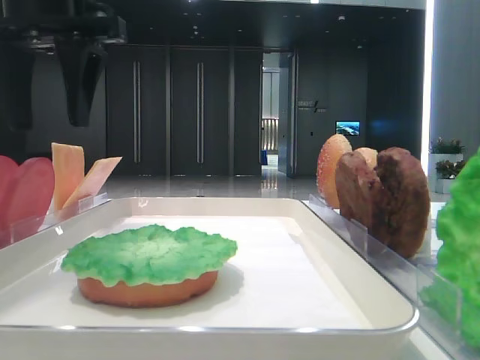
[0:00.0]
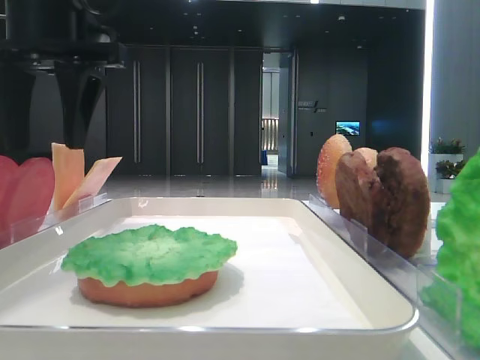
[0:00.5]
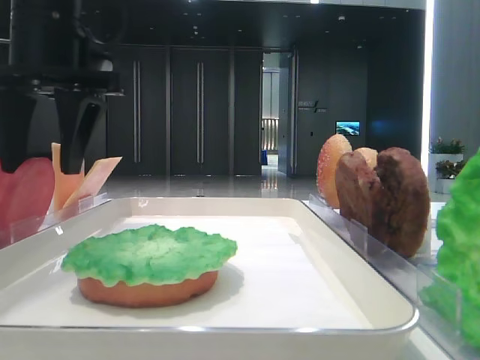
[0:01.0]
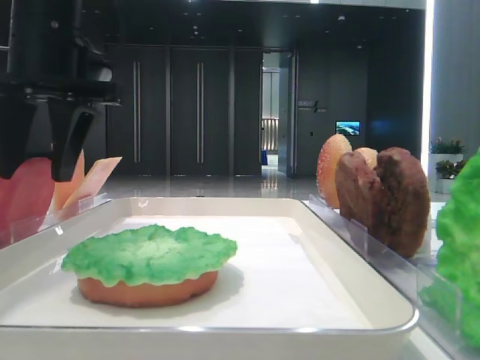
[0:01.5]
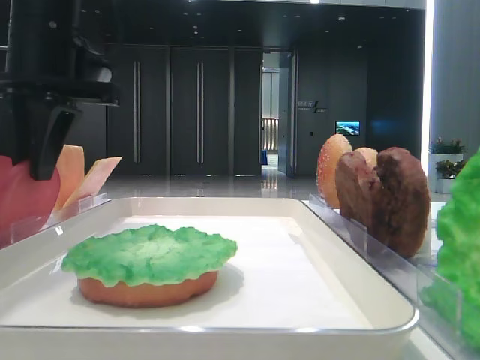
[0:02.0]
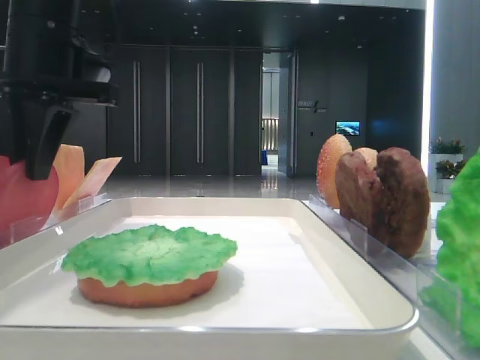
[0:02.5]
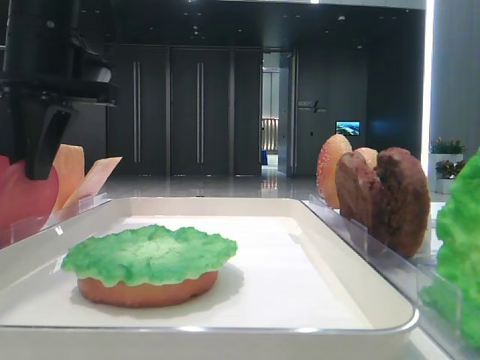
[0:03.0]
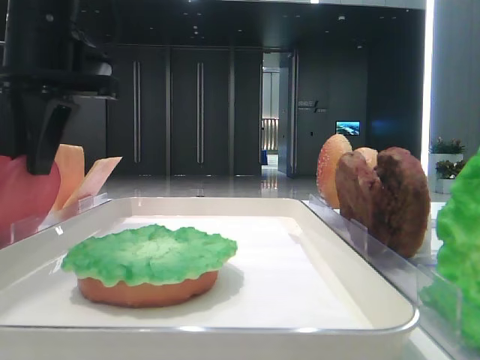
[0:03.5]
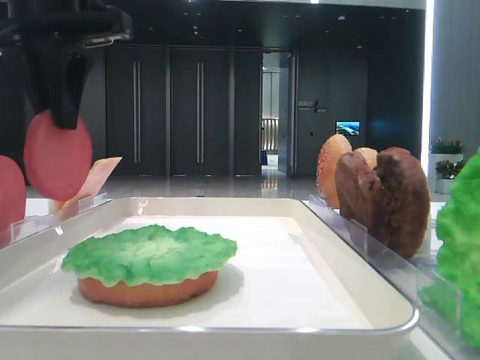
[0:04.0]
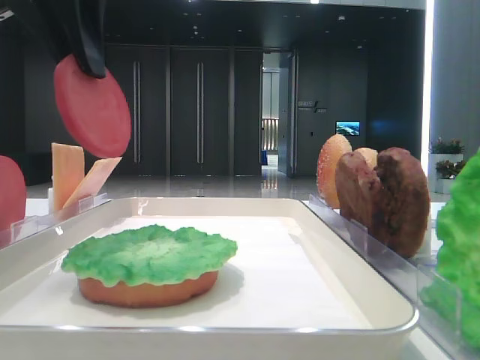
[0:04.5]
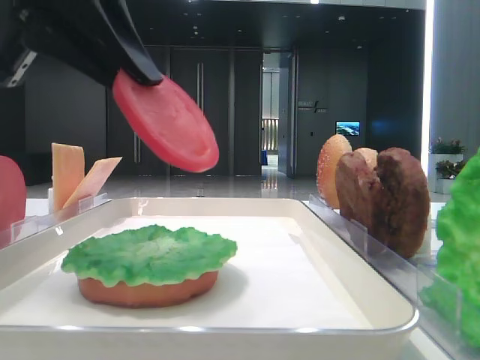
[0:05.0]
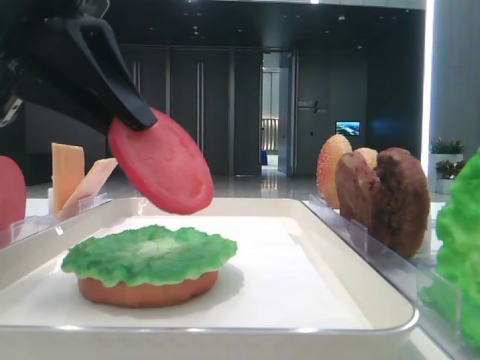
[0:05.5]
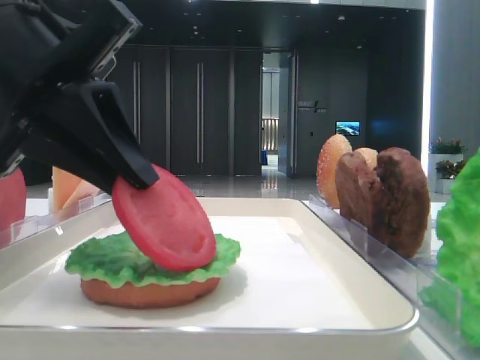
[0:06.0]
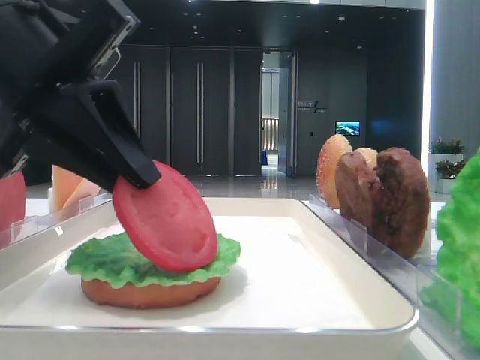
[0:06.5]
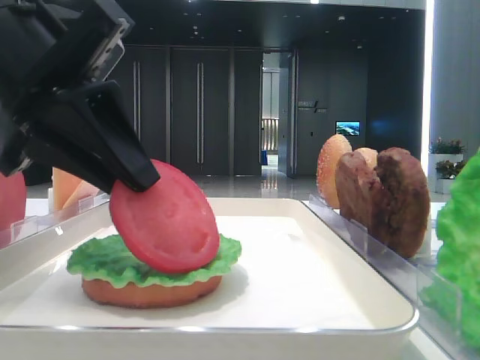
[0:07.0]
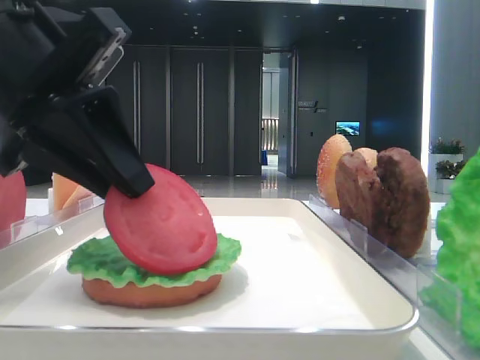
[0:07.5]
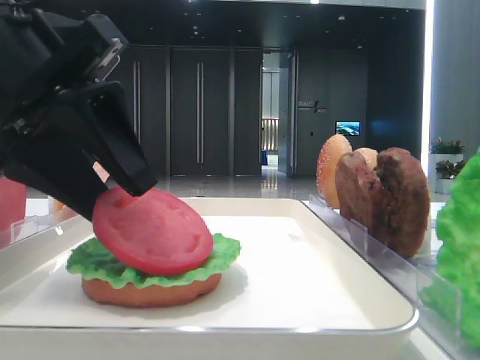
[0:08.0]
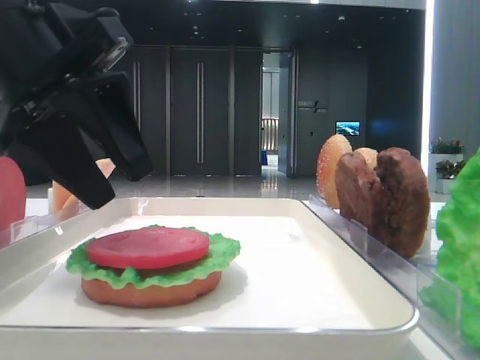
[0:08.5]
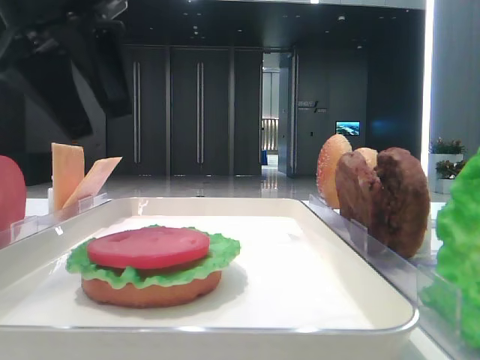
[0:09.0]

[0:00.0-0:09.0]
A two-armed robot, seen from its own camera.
Step, 0:00.0 to 0:02.0: Pick up the tomato slice with the left hand.
Step, 0:02.5 to 0:08.5: Place the tomato slice on the lettuce leaf with the left hand.
0:00.0 to 0:02.0: The left gripper closes its fingers.
0:02.0 to 0:04.5: The left gripper travels upward and backward by about 10 cm.
0:04.5 to 0:07.0: The left gripper goes some 15 cm downward and backward.
0:07.0 to 0:09.0: The left gripper travels upward by roughly 5 cm, and opens up.

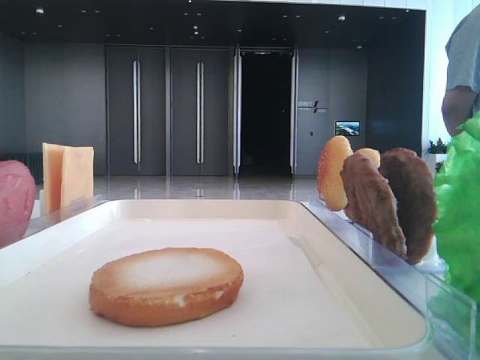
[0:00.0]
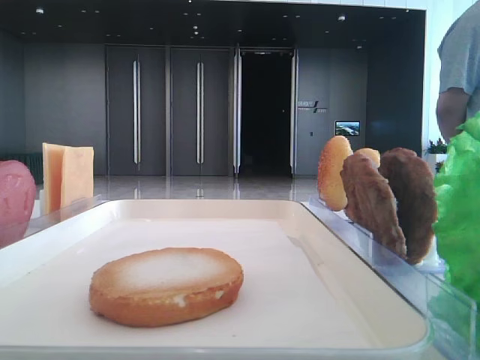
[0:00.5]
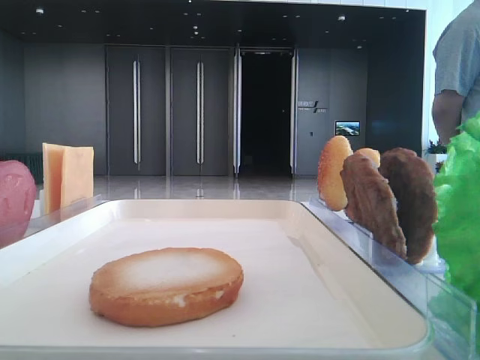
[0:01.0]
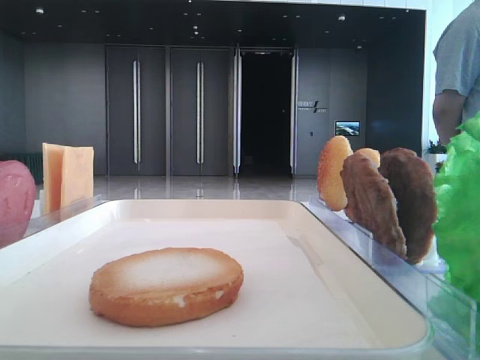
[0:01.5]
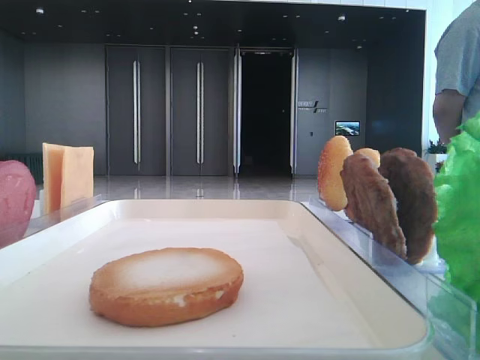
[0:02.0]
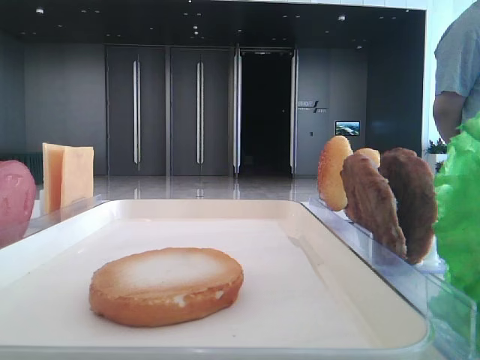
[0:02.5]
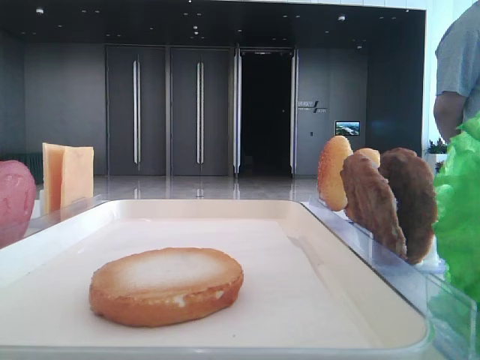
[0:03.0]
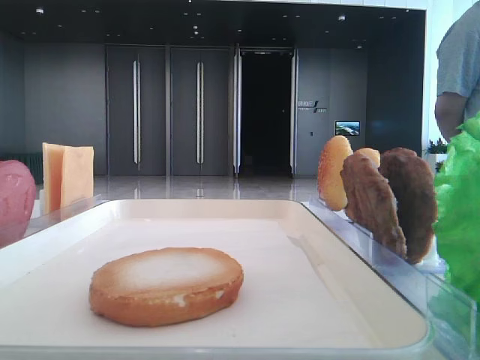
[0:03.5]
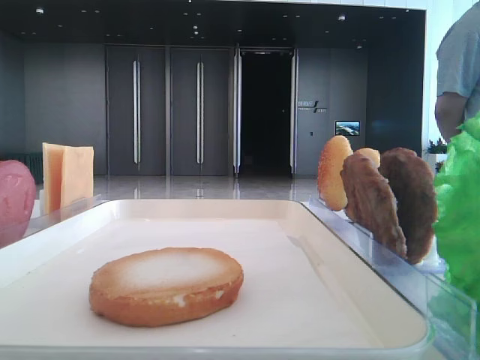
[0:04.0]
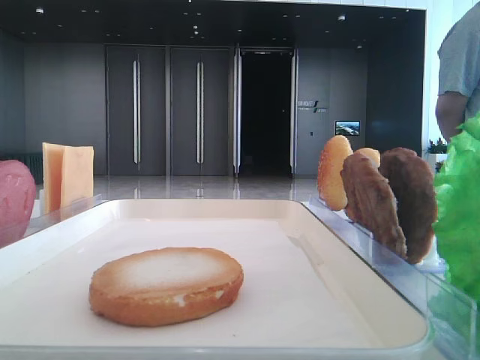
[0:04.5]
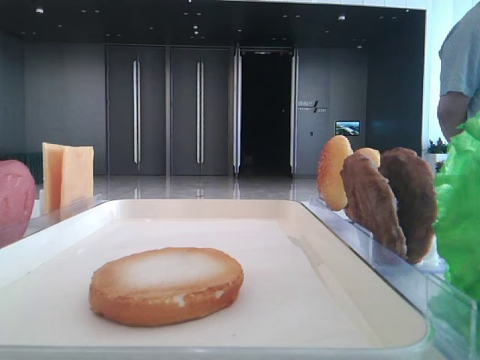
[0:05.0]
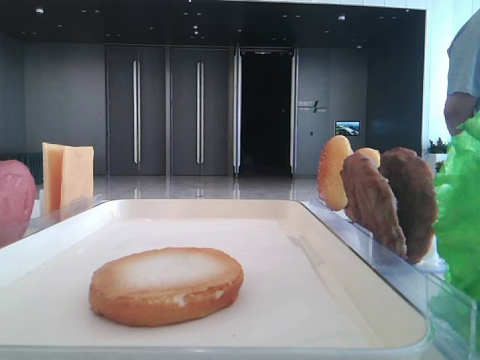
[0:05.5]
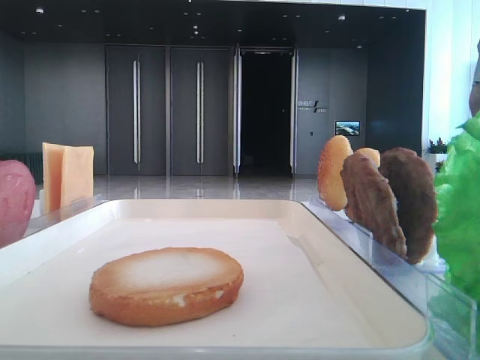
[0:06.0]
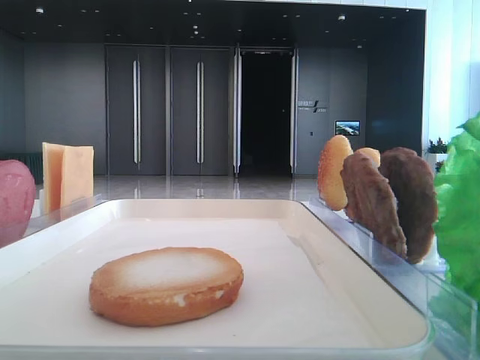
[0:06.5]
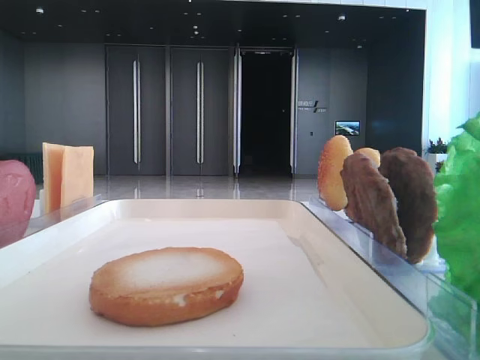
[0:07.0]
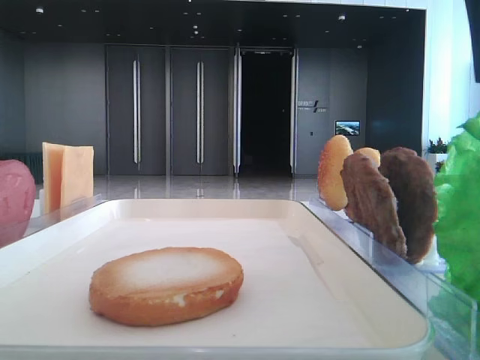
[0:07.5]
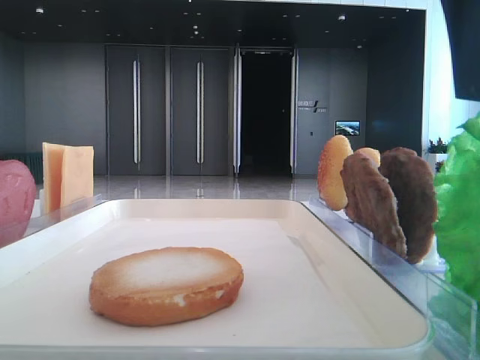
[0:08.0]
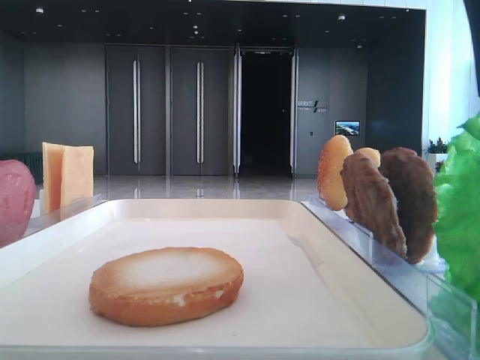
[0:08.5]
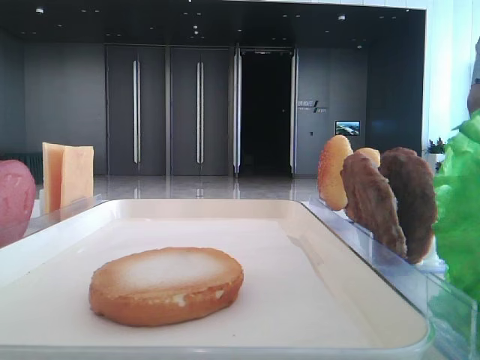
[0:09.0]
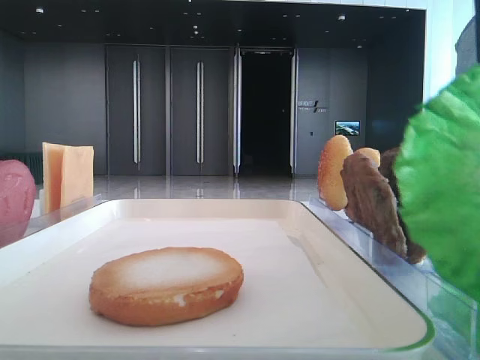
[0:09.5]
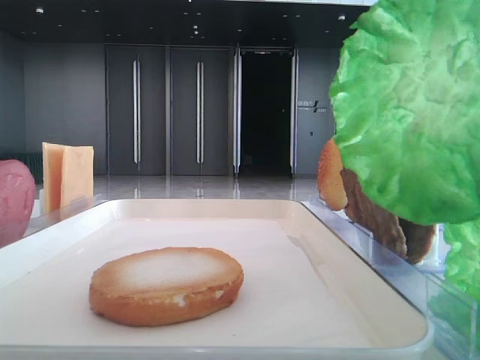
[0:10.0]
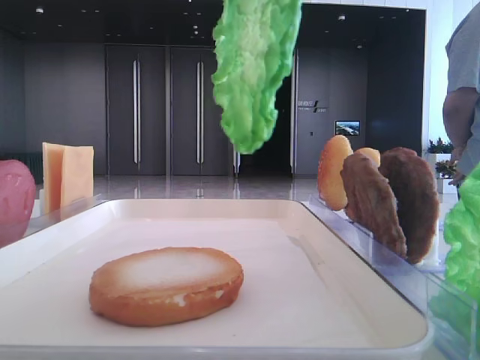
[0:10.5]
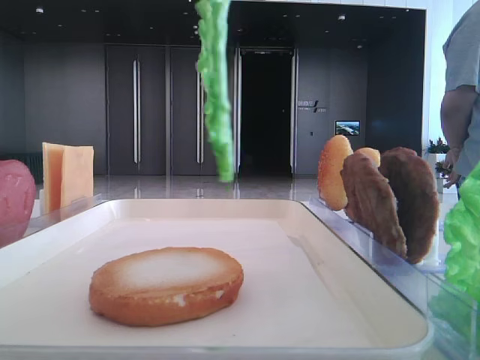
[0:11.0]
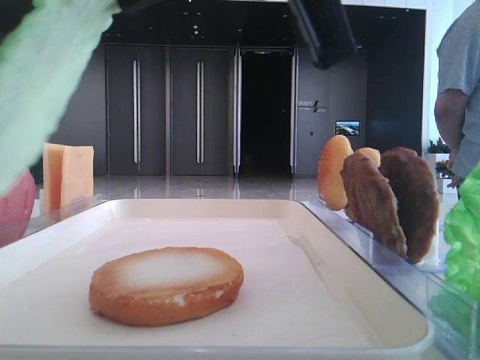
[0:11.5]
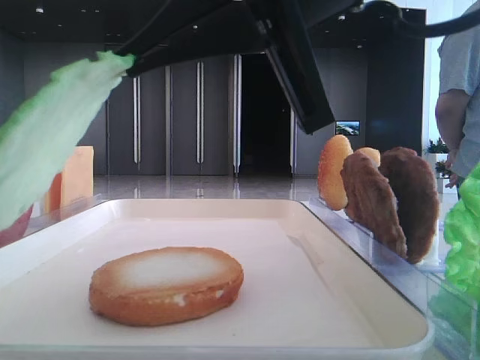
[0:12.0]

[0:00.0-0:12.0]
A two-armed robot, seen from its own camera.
Step, 0:00.0 to 0:09.0: Grab the lettuce leaf with the right hand.
0:04.0 to 0:06.0: The right gripper heads to the left, covering some 15 cm.
0:06.0 to 0:08.0: The right gripper heads forward and downward, covering approximately 5 cm.
0:08.0 to 0:10.0: The right gripper shifts some 5 cm upward, and closes up.
0:10.0 to 0:12.0: The right gripper is displaced downward, forward and to the left by about 15 cm.

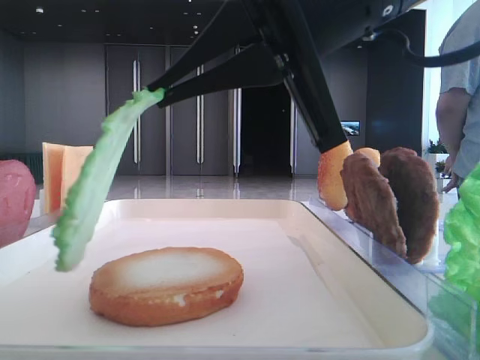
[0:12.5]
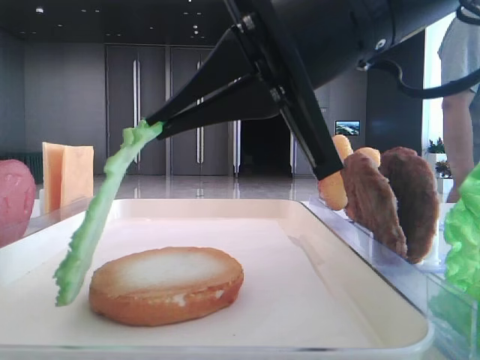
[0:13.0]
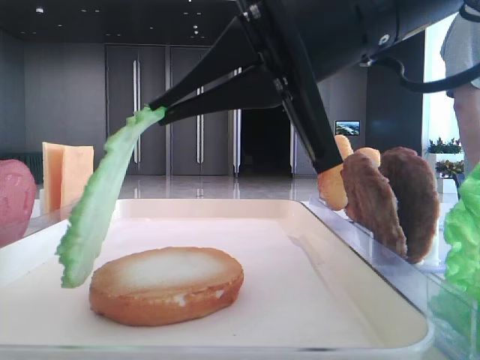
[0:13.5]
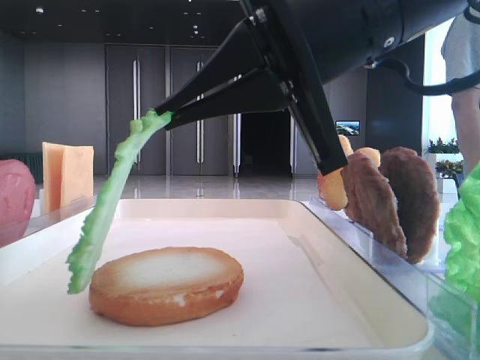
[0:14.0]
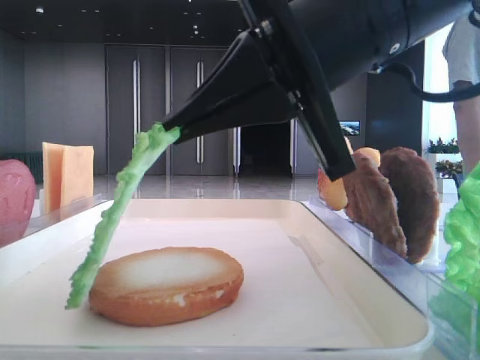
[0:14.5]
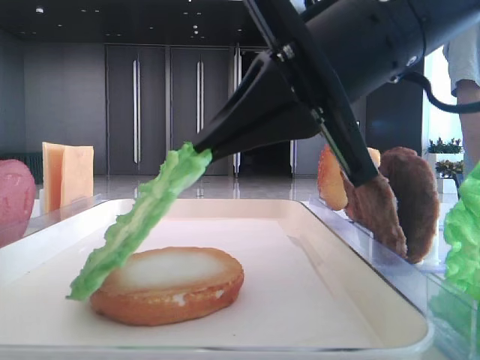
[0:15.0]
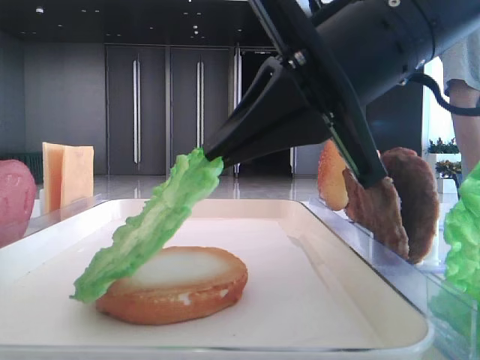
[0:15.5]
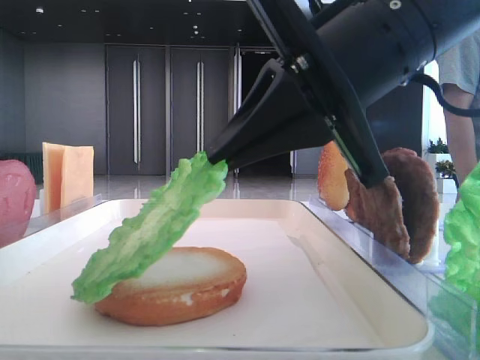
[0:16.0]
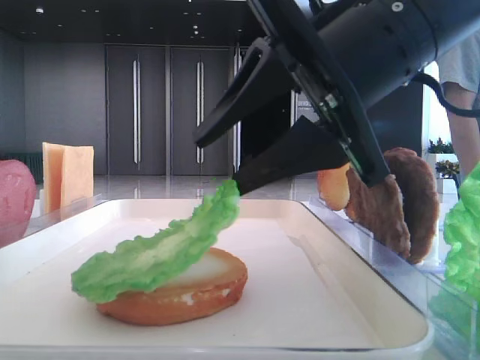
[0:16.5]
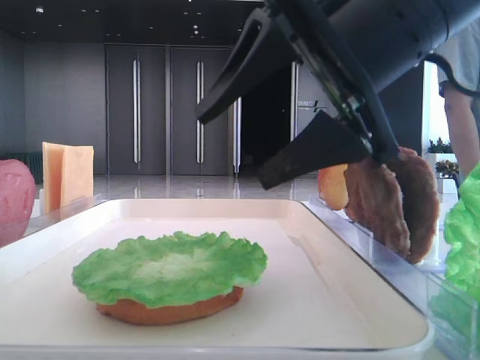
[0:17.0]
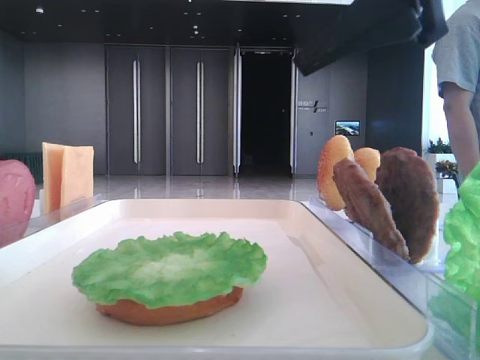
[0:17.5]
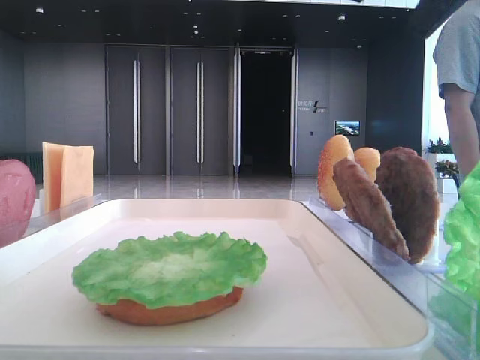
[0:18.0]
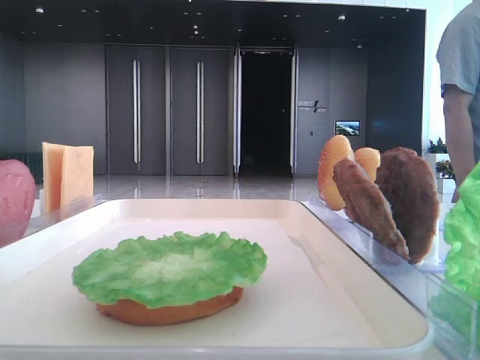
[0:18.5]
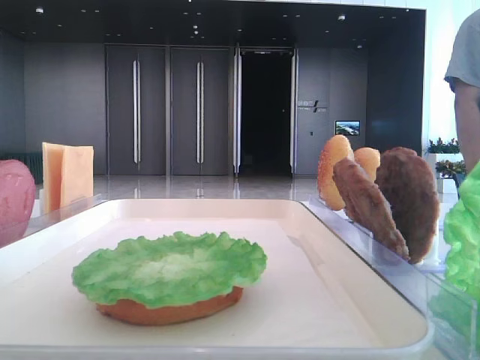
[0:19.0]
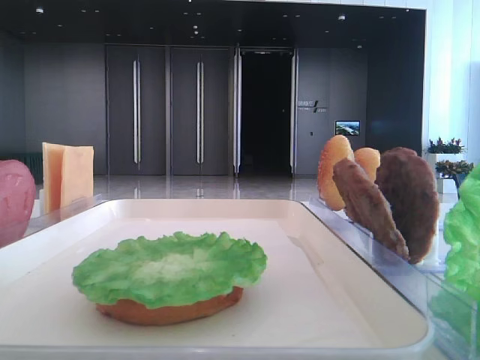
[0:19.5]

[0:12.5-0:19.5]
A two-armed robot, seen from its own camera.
Step, 0:12.5 to 0:16.5: Place the lettuce leaf on the bottom bread with the right hand.
0:12.5 to 0:16.0: The grippers move only a little.
0:16.0 to 0:17.5: The right gripper goes some 10 cm upward, and opens its fingers.
0:17.5 to 0:19.5: The right gripper shifts some 25 cm to the right and upward.
